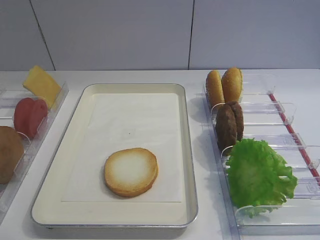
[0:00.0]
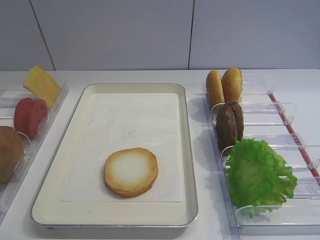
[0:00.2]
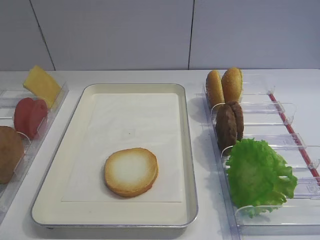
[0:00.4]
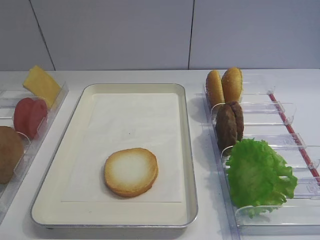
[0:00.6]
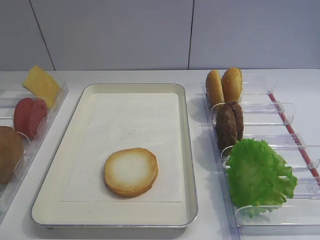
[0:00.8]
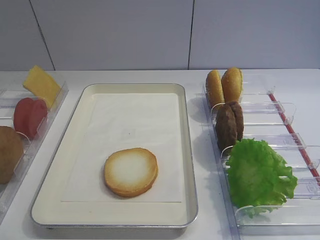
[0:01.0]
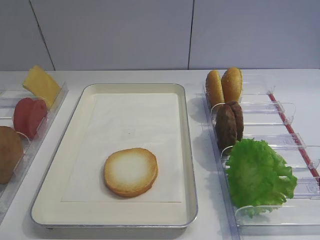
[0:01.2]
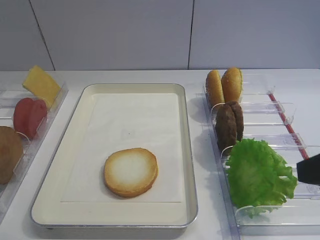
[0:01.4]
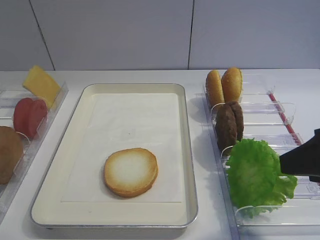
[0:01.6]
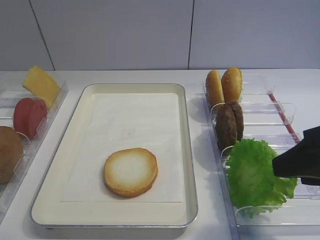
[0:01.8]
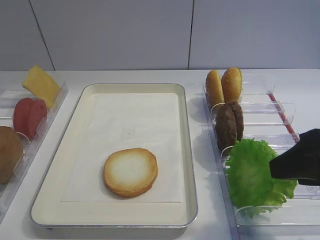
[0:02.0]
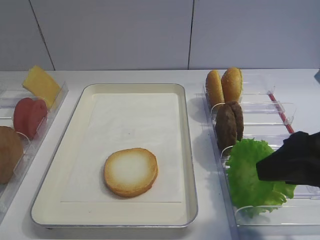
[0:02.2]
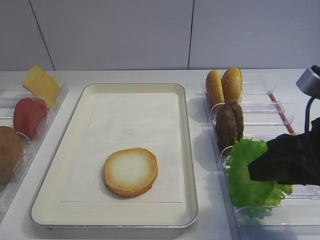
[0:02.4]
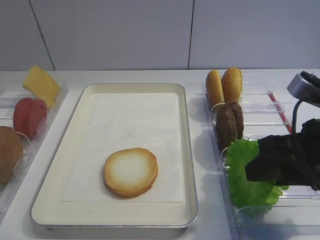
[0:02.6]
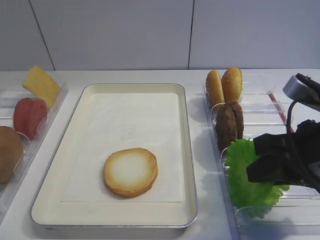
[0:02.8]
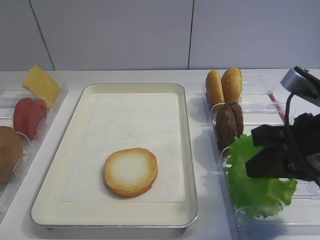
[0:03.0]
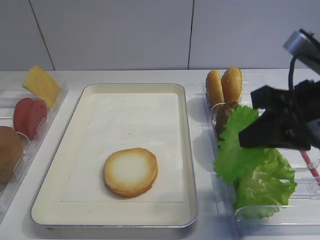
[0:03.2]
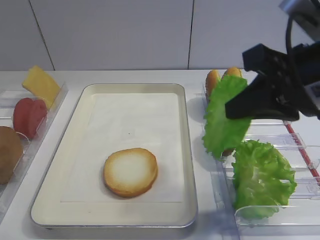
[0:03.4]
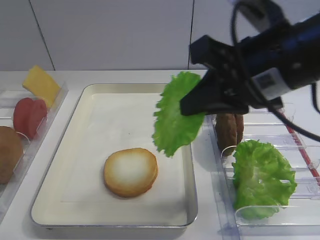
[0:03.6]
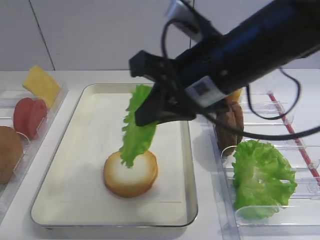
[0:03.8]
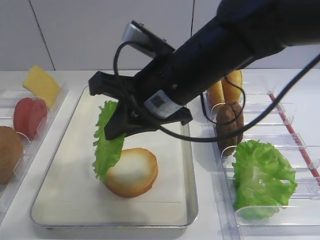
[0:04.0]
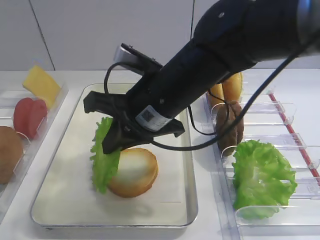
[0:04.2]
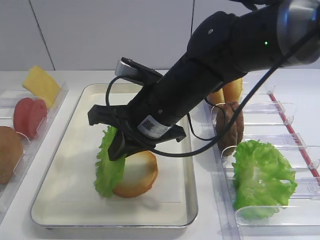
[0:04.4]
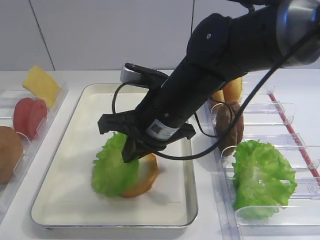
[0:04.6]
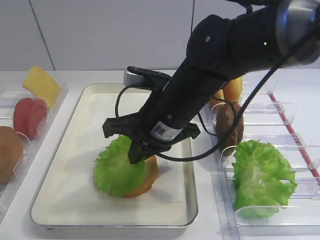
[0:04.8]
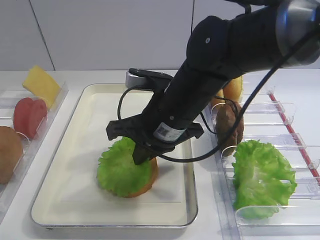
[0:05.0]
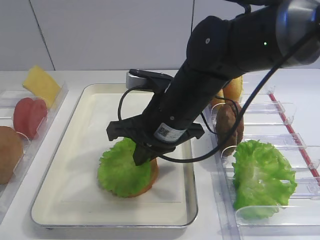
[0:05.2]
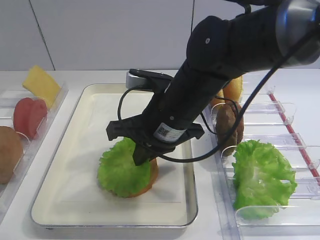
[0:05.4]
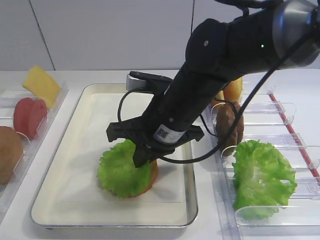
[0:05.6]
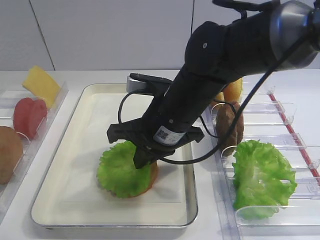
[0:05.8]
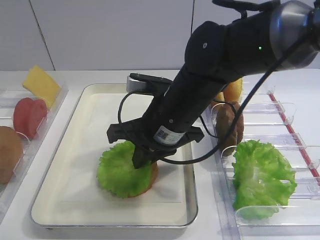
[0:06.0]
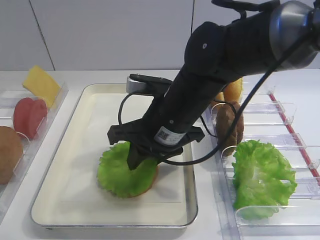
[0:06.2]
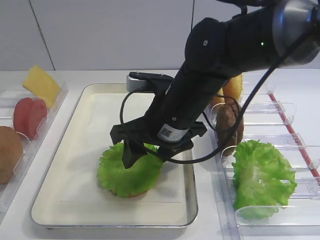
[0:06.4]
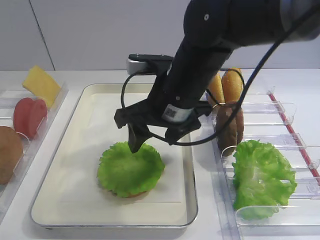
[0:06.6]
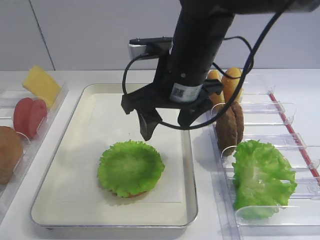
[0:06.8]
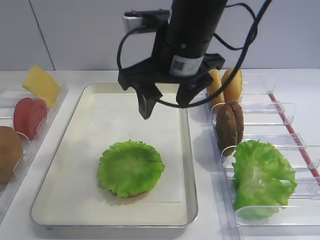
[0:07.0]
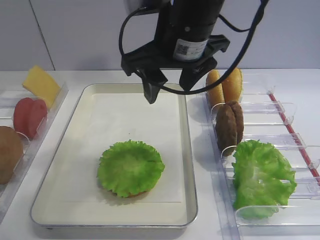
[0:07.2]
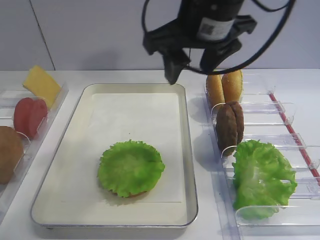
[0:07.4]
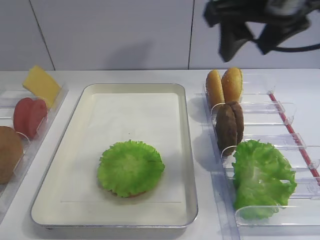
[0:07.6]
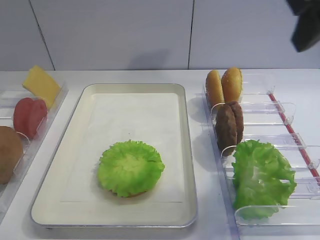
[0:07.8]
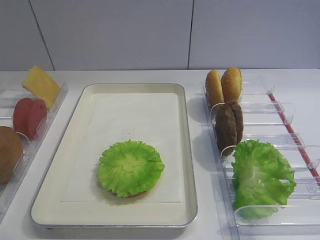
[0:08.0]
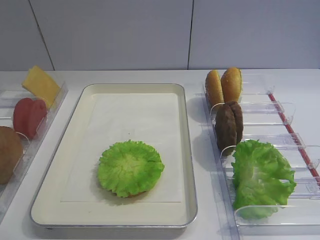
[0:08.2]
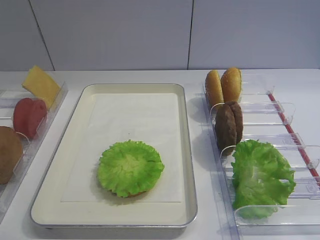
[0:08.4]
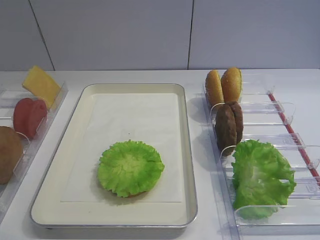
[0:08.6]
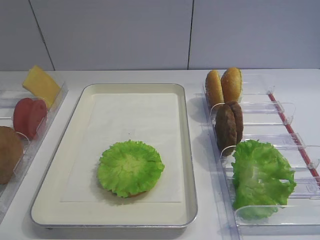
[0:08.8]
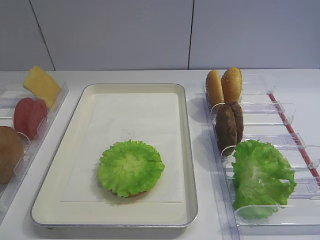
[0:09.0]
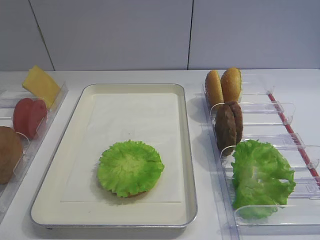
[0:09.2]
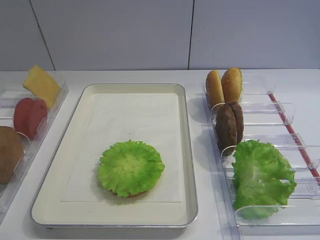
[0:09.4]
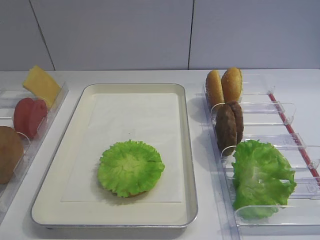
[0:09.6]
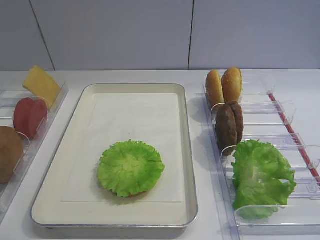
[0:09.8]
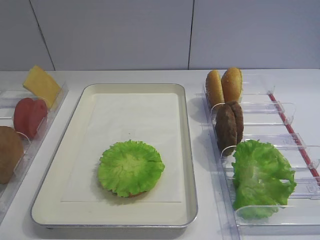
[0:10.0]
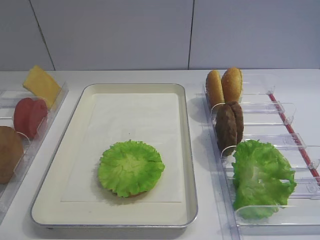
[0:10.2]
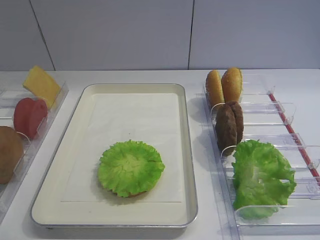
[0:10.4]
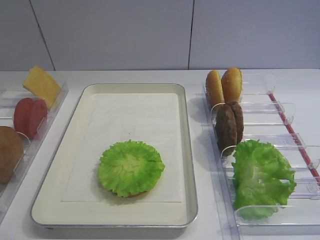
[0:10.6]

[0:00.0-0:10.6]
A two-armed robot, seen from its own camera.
Step, 0:00.0 to 0:03.0: Pick up the lettuce leaf with the right gripper.
Step, 0:03.4 to 0:06.6: Place the lettuce leaf on the bread slice with the right gripper.
0:01.6 to 0:03.0: The right gripper changes place by about 5 cm, and closes.
0:03.0 to 0:04.6: The right gripper moves to the left and forward, roughly 20 cm.
0:04.6 to 0:06.0: Both grippers stay about where they are.
0:06.0 to 0:07.6: The right gripper goes some 25 cm upward and to the right, and opens.
0:07.6 to 0:09.0: The right gripper shifts about 30 cm backward and downward.

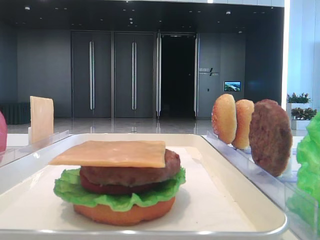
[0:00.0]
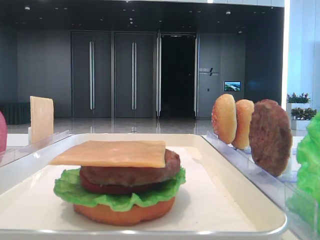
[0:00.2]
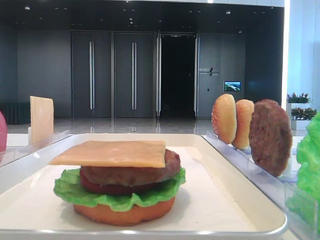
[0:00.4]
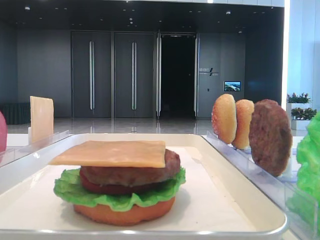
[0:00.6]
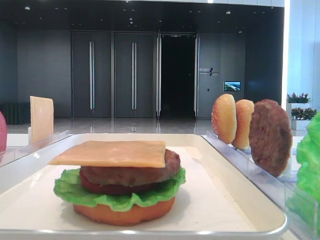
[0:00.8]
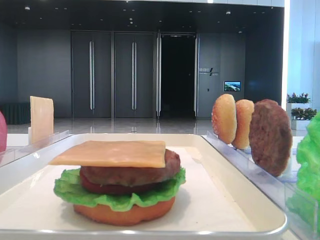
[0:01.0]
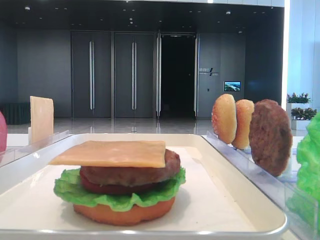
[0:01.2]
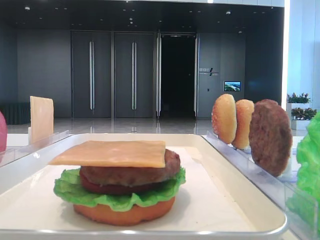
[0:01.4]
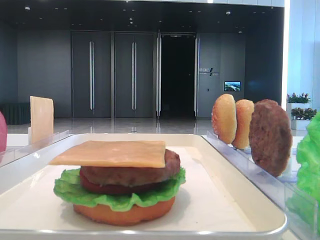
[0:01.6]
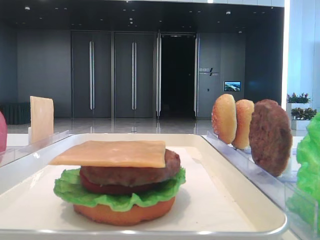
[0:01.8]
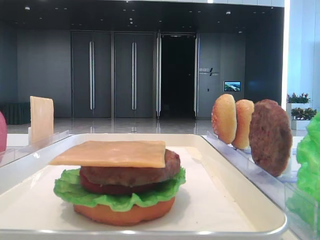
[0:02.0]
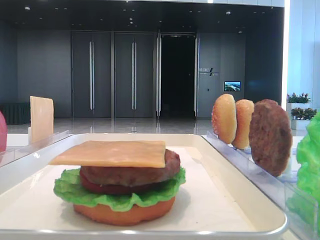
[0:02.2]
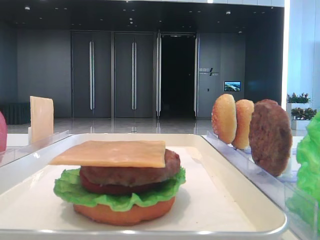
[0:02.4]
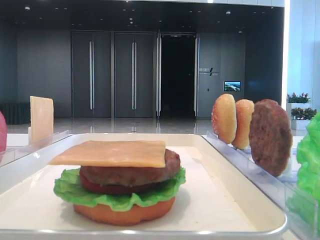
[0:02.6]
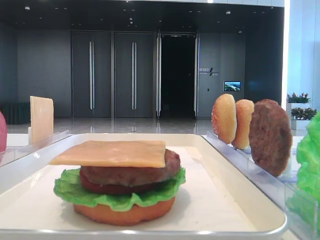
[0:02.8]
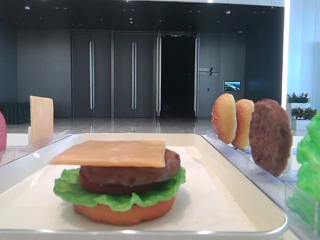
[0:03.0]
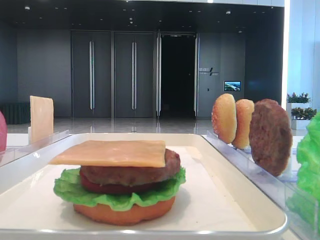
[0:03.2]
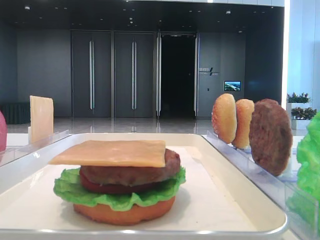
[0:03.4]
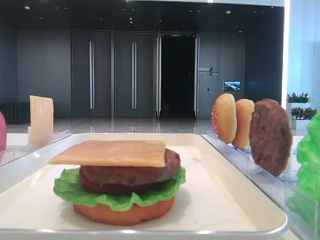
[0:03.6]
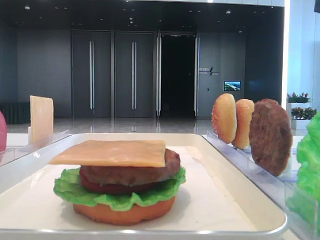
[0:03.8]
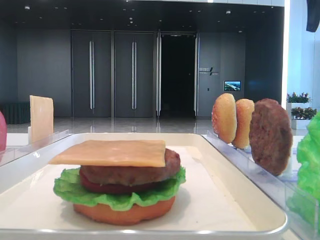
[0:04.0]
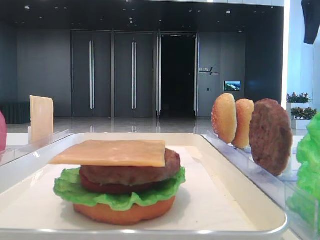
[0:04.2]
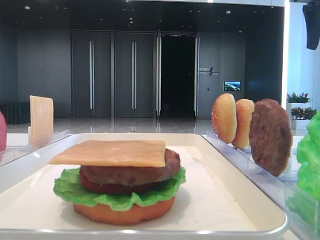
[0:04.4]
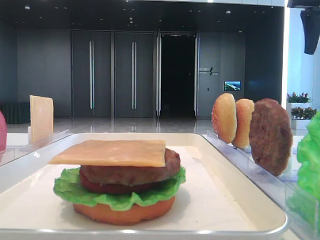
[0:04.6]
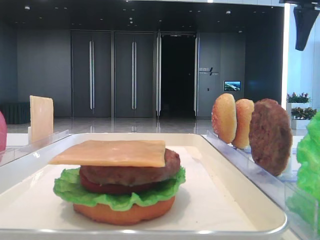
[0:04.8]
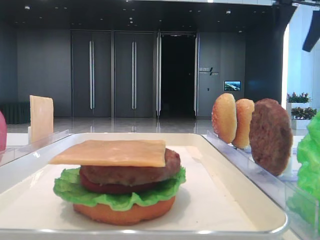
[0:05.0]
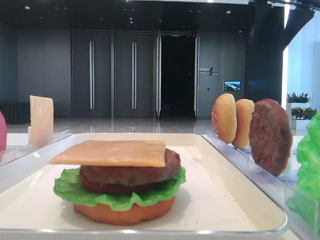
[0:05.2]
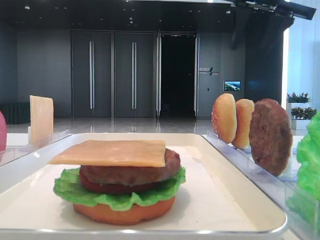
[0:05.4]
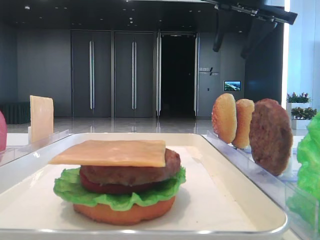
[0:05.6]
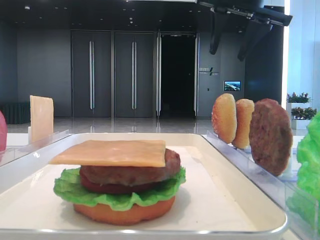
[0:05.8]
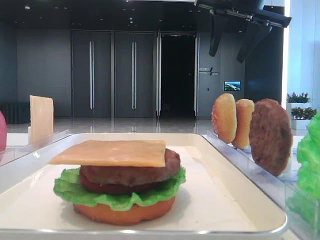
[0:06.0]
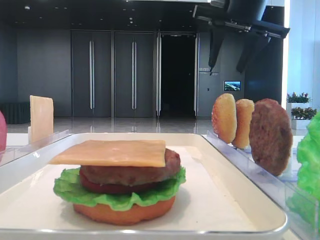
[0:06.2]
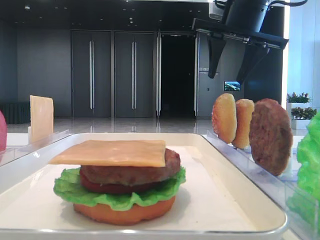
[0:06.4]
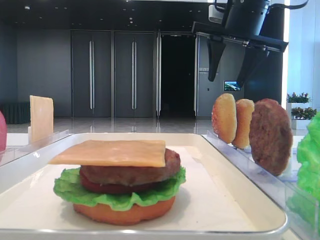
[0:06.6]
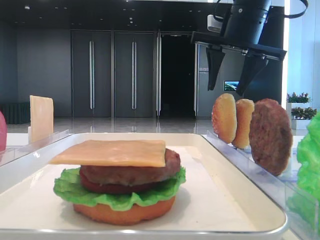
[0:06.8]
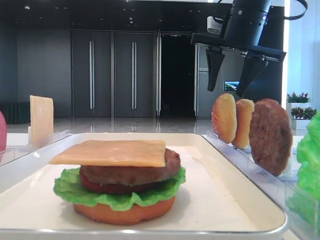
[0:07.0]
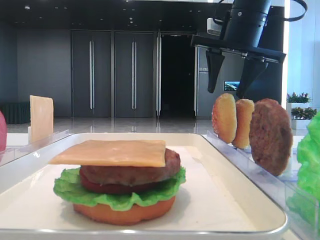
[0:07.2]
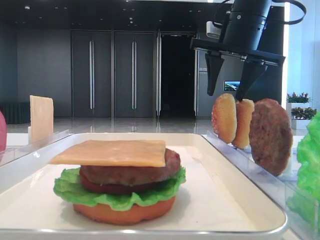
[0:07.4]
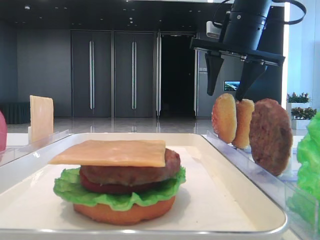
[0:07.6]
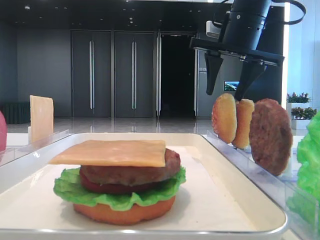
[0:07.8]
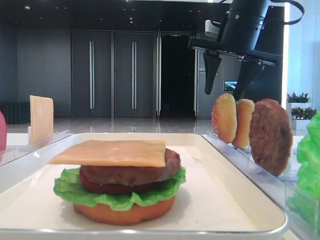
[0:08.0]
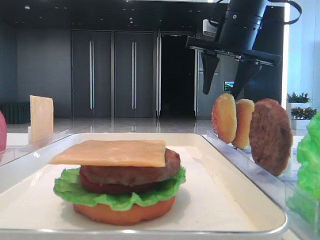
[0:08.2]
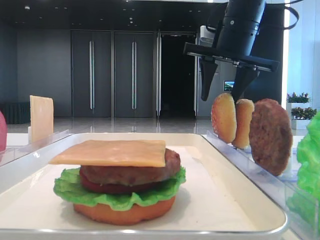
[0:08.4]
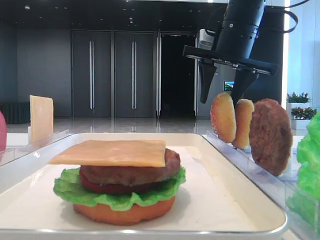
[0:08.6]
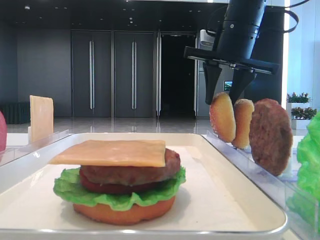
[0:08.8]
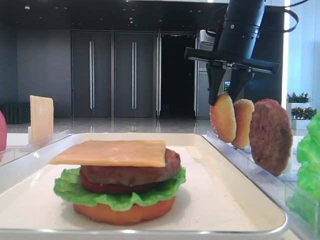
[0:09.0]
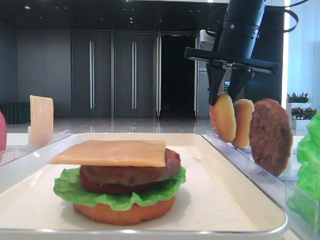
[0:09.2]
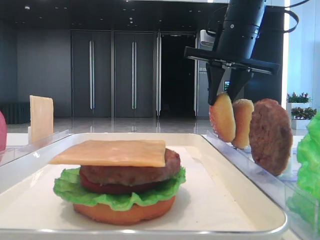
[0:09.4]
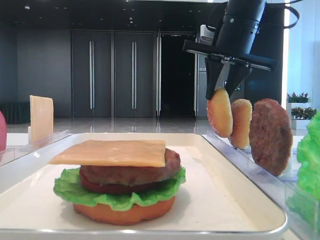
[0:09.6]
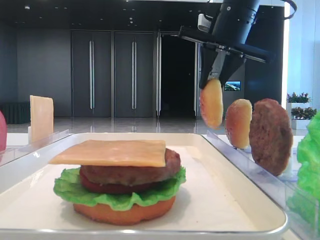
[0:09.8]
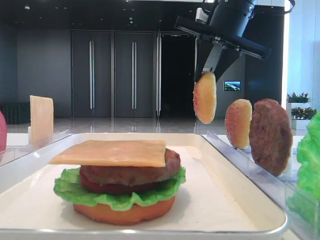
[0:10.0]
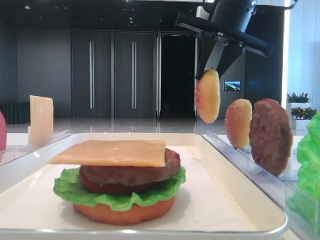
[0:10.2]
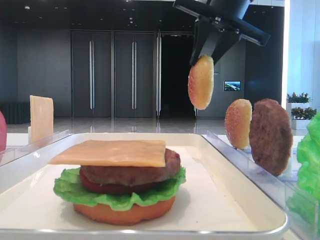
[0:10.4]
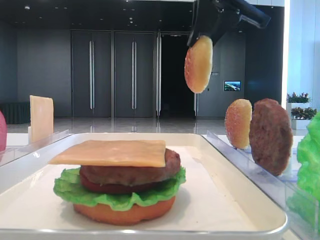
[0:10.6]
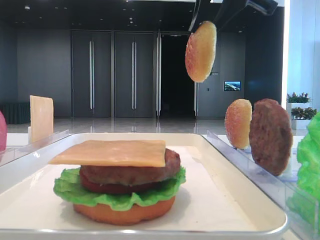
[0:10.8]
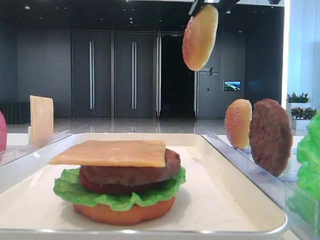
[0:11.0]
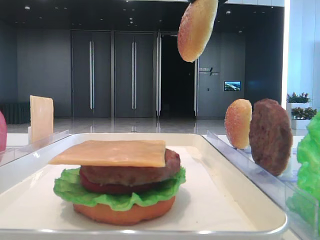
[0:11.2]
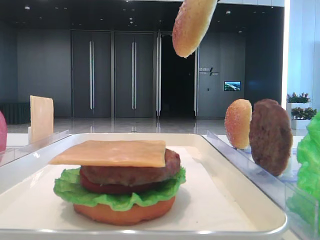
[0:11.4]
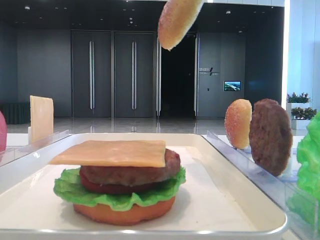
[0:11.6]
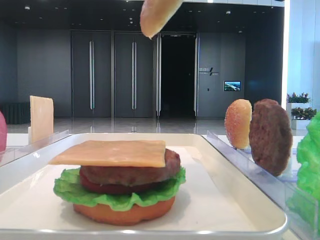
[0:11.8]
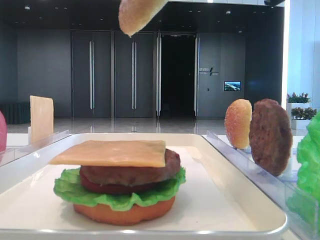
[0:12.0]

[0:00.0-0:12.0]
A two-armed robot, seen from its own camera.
Step, 0:00.0 to 0:09.4: Pick up the top bread slice with the right hand.
0:03.0 to 0:04.4: The right gripper is displaced forward by about 25 cm.
0:04.4 to 0:06.0: The right gripper heads to the left, covering about 15 cm.
0:06.0 to 0:07.6: The right gripper is displaced downward by about 5 cm.
0:07.6 to 0:09.0: The right gripper closes its fingers.
0:09.0 to 0:10.4: The right gripper travels upward by some 5 cm.
0:10.4 to 0:12.0: The right gripper moves backward, approximately 20 cm.
